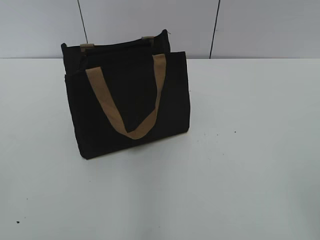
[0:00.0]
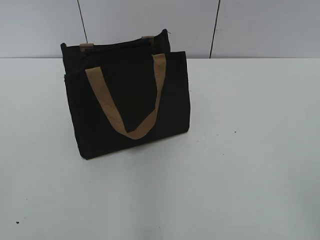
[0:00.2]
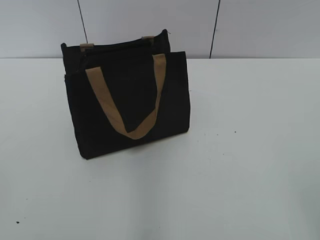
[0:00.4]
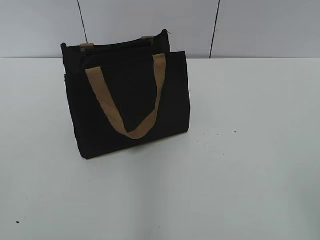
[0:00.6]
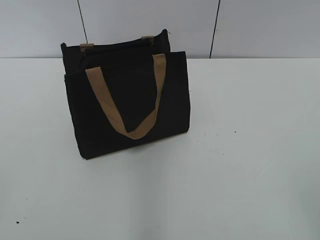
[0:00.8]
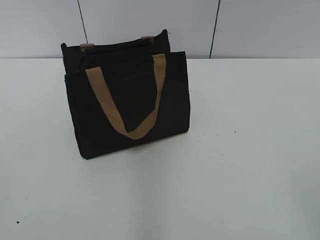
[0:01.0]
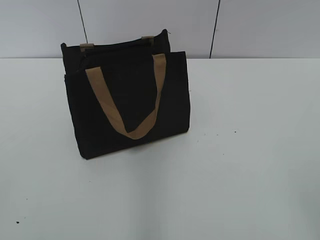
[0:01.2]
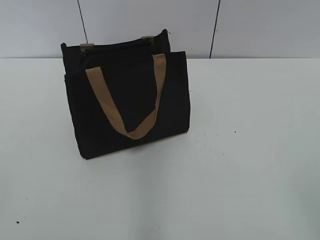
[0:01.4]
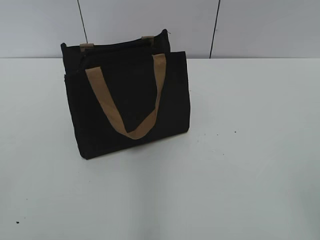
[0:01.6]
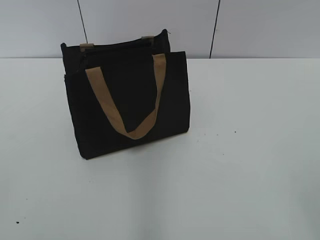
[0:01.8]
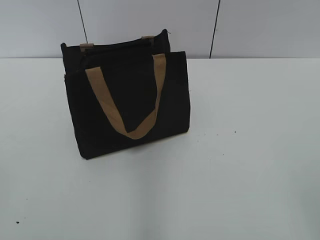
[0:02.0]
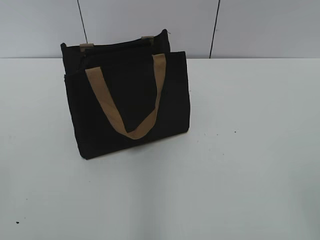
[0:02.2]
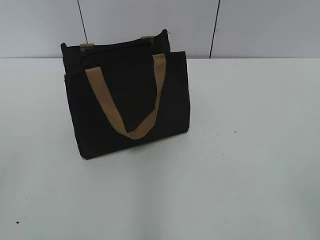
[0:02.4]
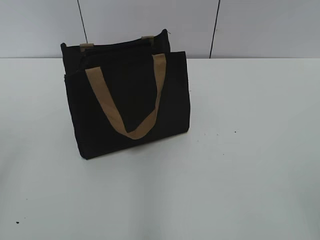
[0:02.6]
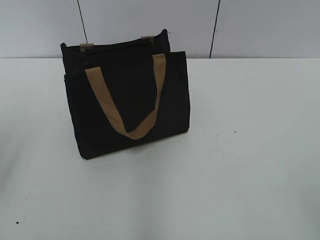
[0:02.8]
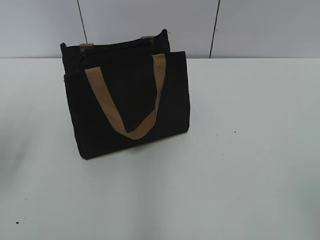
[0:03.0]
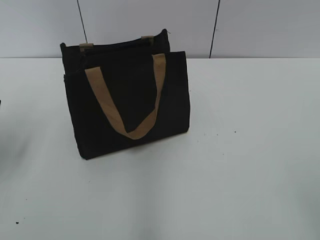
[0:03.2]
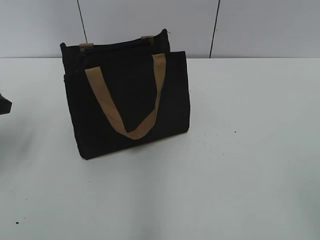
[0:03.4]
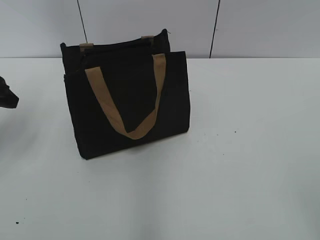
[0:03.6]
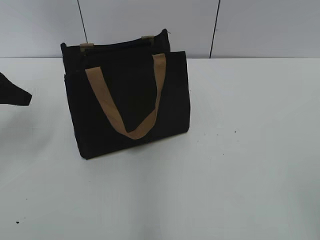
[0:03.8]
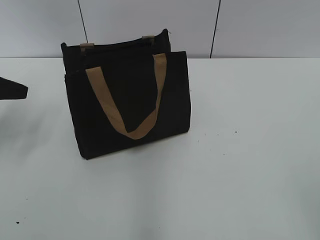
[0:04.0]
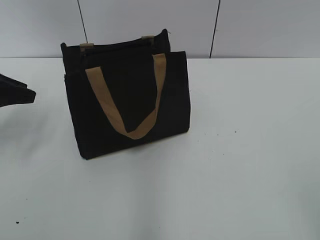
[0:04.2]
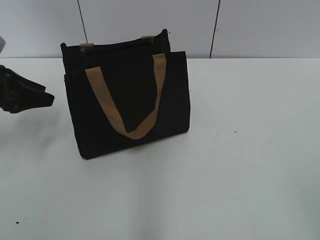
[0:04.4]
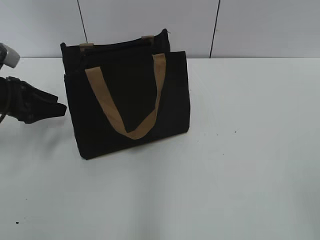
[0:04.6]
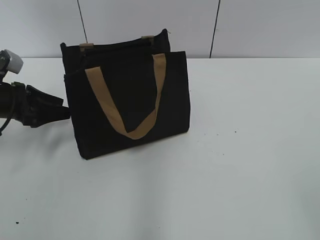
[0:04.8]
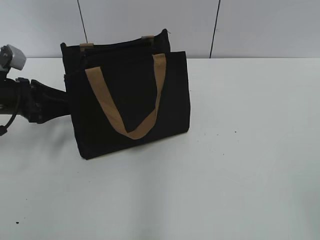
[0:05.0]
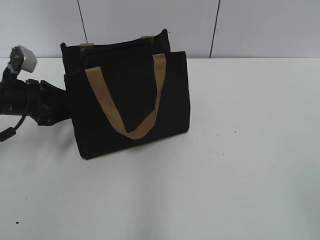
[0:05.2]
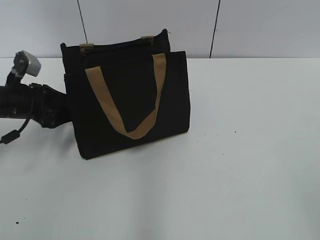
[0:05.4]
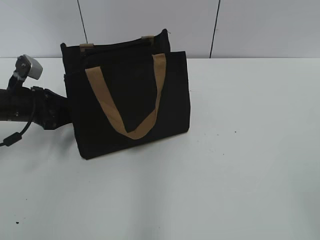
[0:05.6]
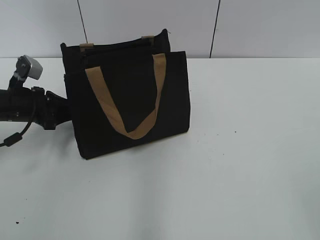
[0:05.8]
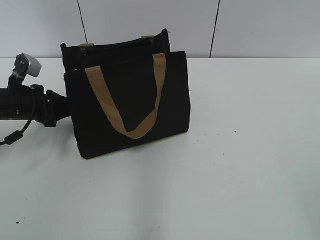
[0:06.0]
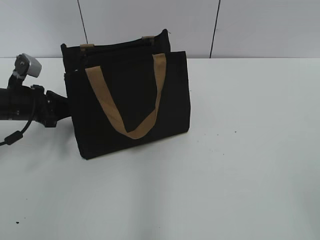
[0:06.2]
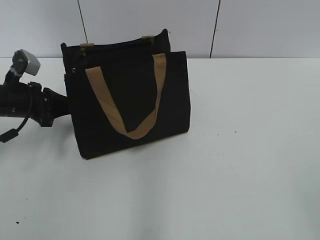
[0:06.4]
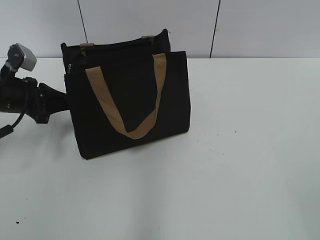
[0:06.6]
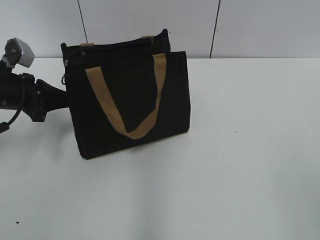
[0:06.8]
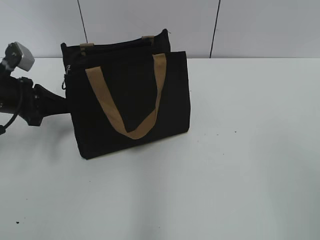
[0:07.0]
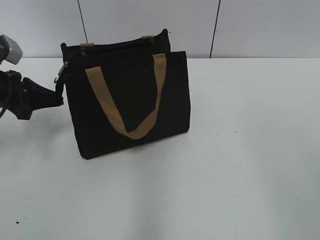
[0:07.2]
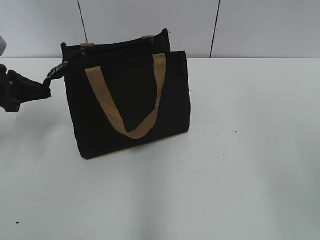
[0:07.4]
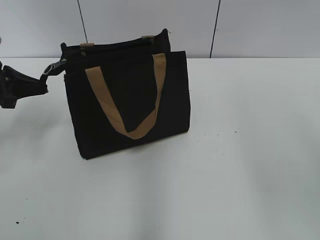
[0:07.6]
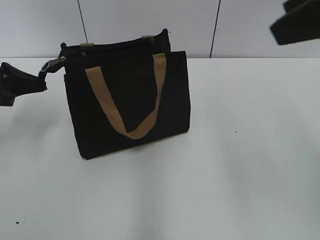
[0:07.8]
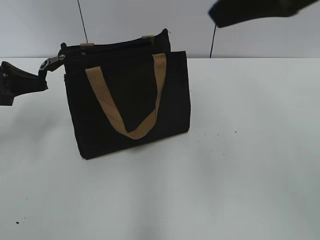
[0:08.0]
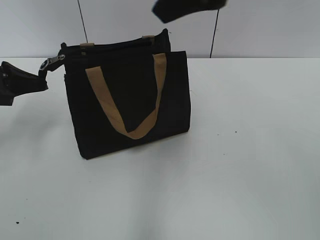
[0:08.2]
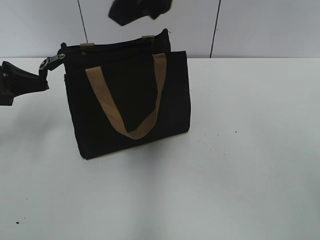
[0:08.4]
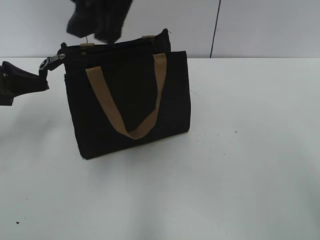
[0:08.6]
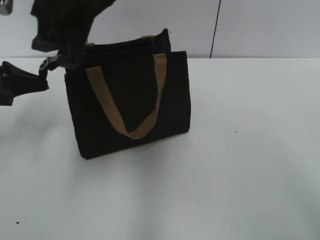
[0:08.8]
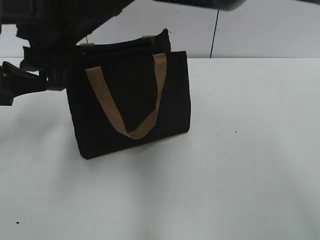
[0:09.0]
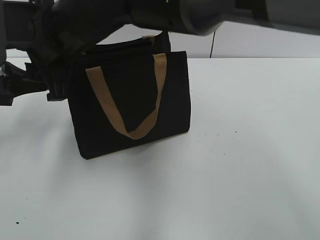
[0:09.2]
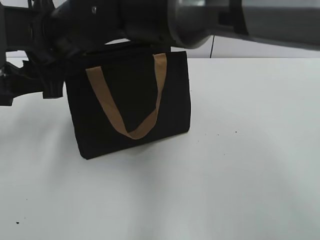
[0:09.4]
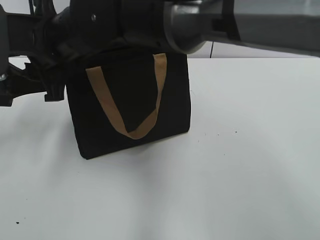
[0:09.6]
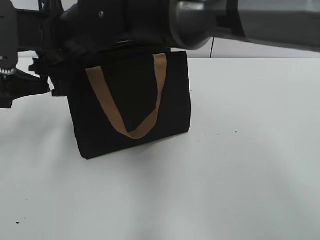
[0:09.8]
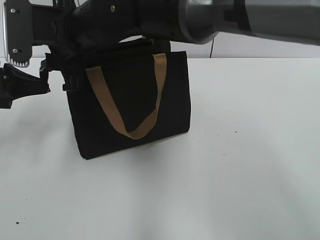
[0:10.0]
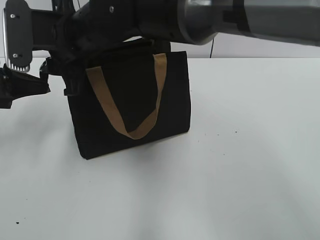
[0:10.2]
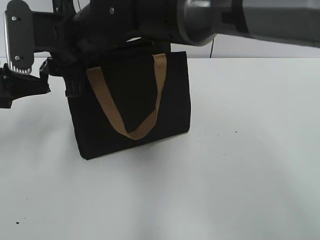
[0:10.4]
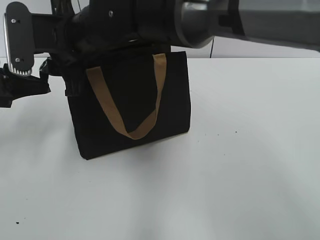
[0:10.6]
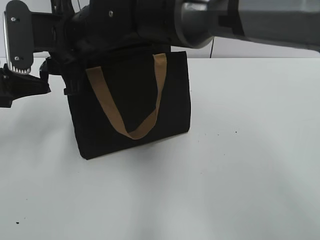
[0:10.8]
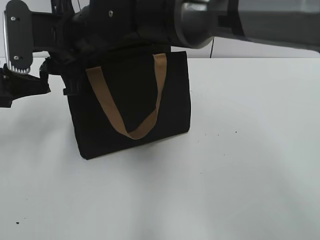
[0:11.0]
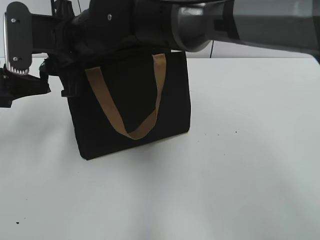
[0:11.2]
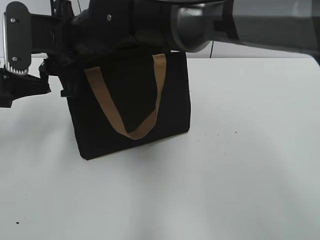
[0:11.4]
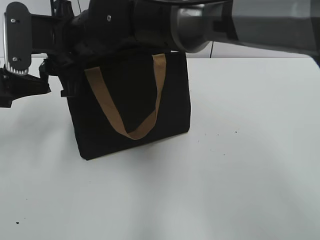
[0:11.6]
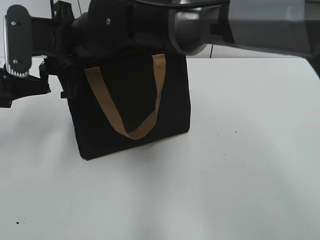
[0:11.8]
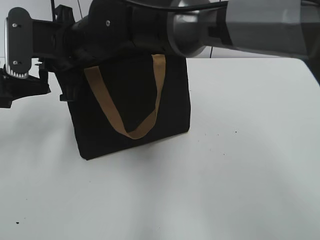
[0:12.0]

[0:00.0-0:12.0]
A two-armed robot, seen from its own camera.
1.6 to 3.0 s: The left gripper travels forward by about 20 cm, and opens up.
3.0 to 4.4 s: The left gripper moves forward and downward, approximately 15 cm.
4.4 to 6.0 s: The left gripper is displaced downward by about 5 cm, and closes.
6.0 to 7.6 s: The left gripper moves upward, about 5 cm.
7.6 to 9.0 s: The right gripper heads to the left, covering roughly 30 cm.
9.0 to 10.4 s: The right gripper shifts approximately 5 cm downward.
10.4 to 12.0 s: The right gripper closes up.

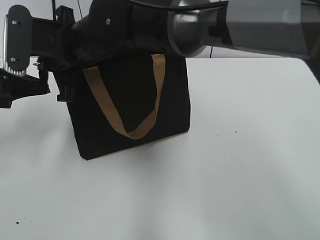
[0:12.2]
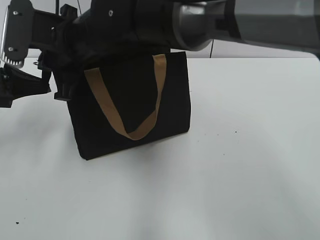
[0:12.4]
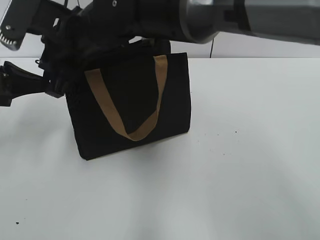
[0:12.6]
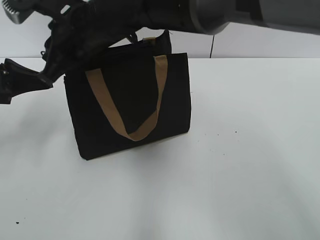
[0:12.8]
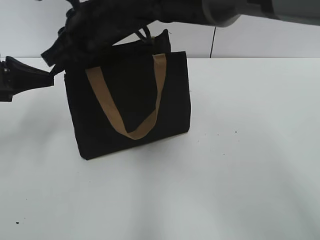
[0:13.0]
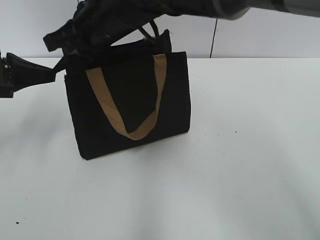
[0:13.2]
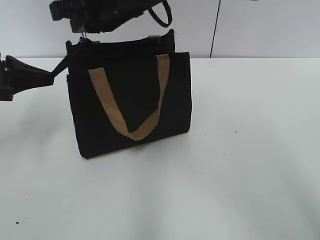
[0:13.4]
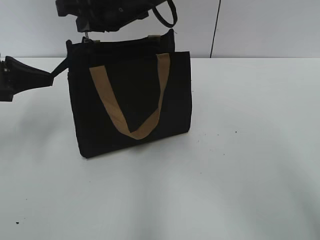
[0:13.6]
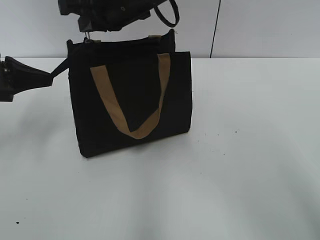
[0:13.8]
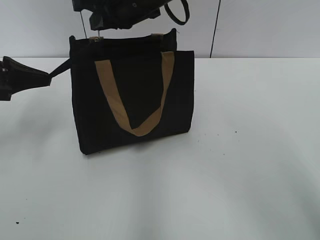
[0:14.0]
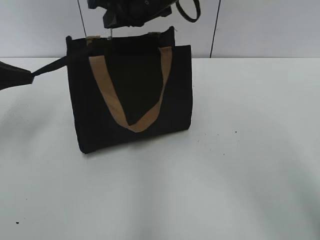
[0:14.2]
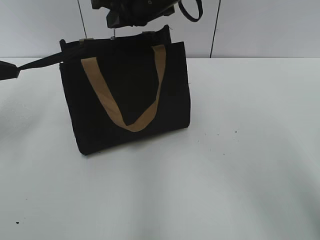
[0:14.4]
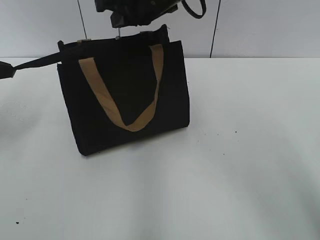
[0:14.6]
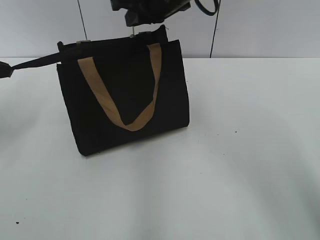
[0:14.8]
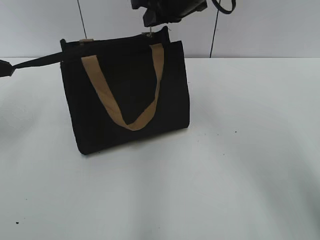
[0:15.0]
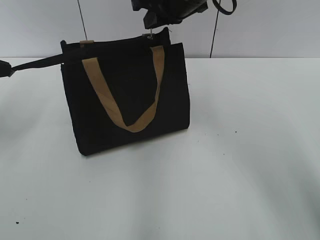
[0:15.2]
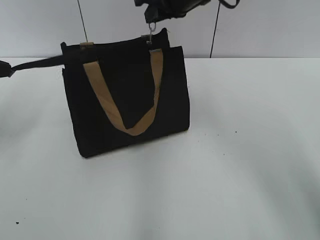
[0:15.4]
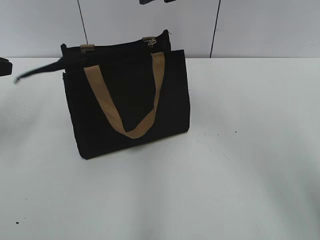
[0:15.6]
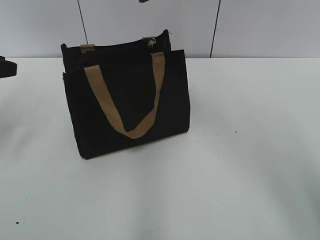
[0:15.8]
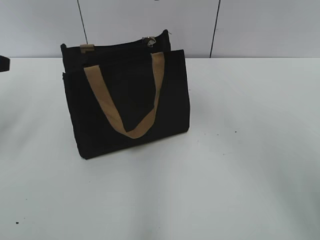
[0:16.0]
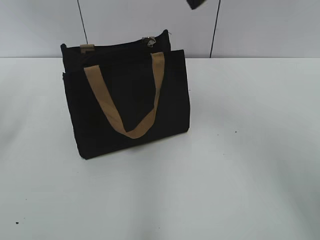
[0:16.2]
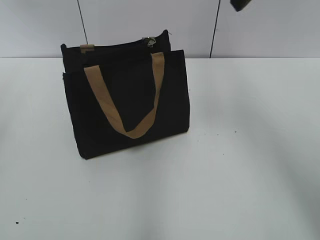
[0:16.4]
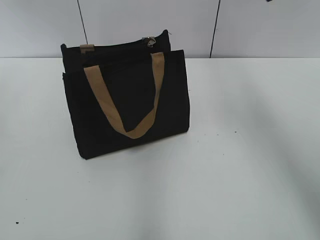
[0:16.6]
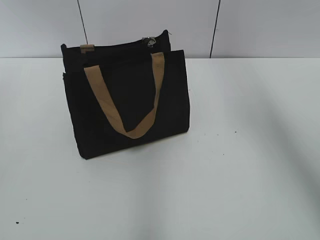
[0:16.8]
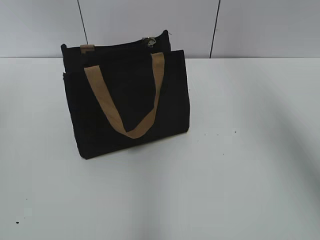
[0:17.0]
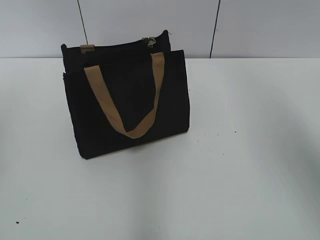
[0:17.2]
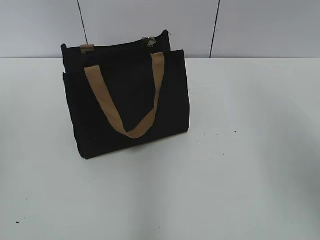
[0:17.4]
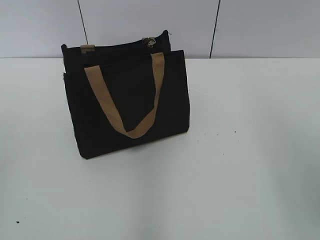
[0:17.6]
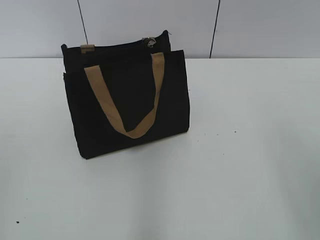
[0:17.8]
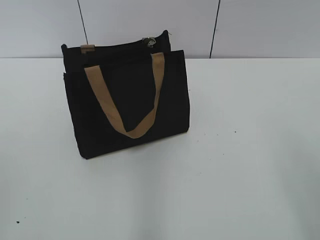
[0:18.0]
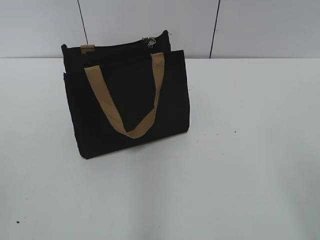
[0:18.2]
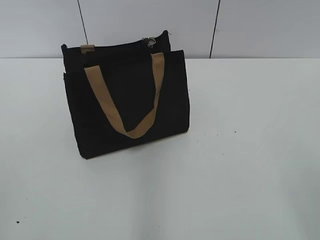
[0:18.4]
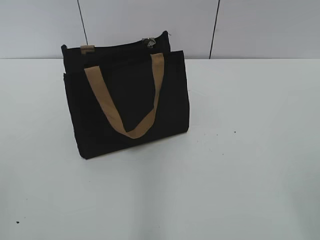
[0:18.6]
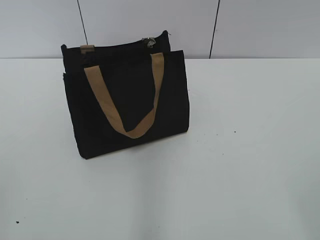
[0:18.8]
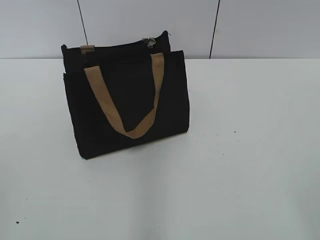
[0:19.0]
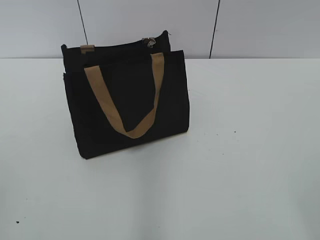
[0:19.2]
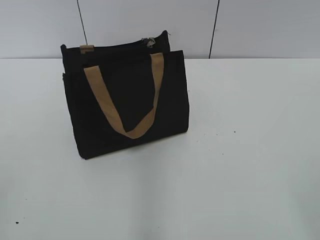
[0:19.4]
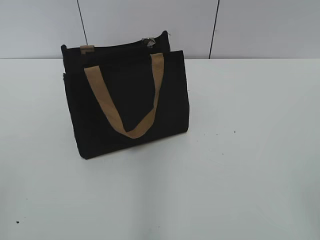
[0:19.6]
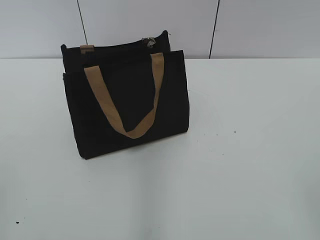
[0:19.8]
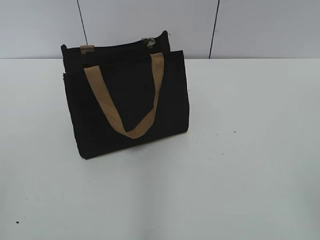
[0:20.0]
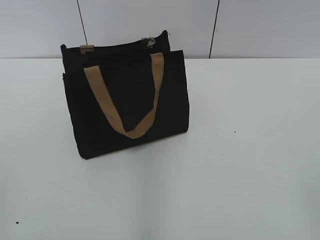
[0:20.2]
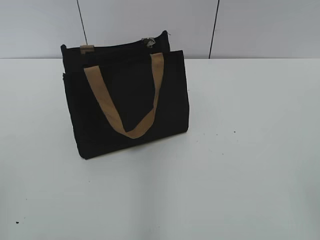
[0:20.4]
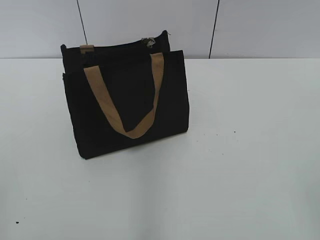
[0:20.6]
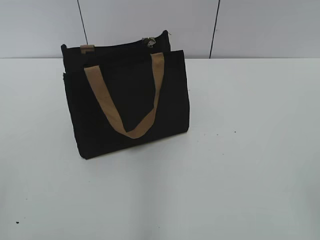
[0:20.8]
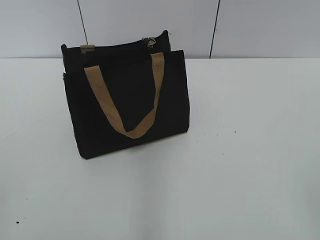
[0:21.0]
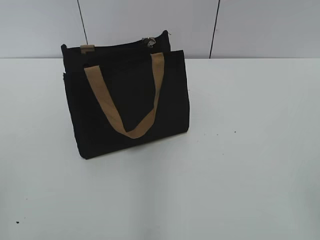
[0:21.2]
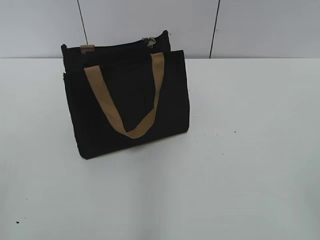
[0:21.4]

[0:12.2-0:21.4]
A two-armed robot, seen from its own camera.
Step, 12.2 to 15.4 s: Zip up the bag with your right hand.
12.2 to 13.8 s: The right gripper travels to the right and upward by about 10 cm.
13.8 to 15.2 s: The right gripper moves to the right, roughly 10 cm; the left gripper heads to the left, covering roughly 5 cm.
15.2 to 16.8 s: The right gripper travels to the right, upward and backward by approximately 20 cm, and opens up; the left gripper is displaced upward and backward by some 15 cm, and opens its fingers.
16.8 to 18.4 s: The right gripper heads backward and downward, covering approximately 35 cm.
19.8 to 21.4 s: The two grippers keep their place.

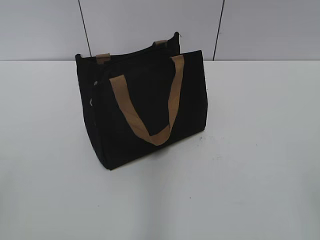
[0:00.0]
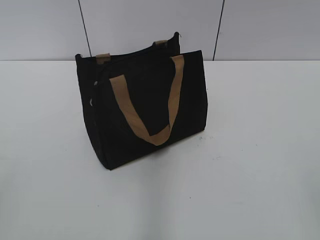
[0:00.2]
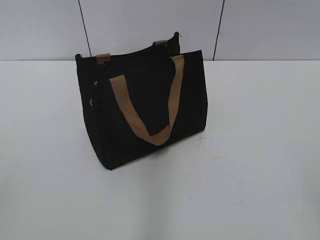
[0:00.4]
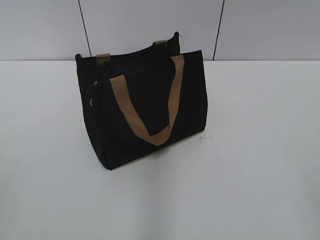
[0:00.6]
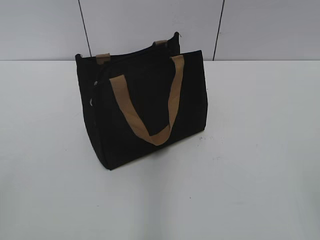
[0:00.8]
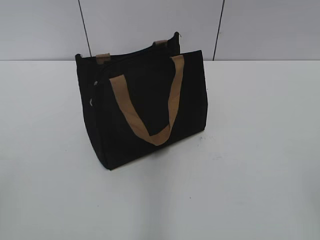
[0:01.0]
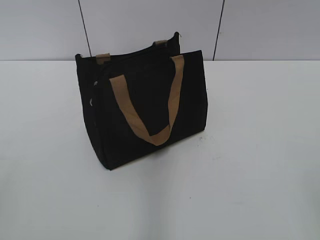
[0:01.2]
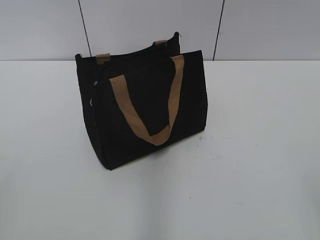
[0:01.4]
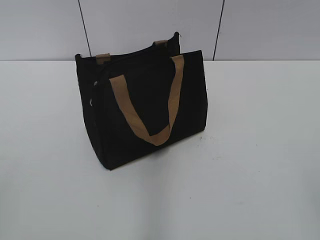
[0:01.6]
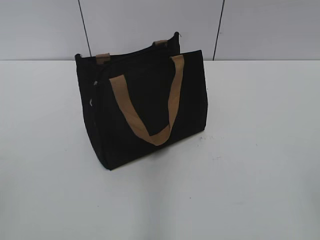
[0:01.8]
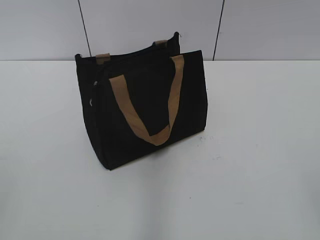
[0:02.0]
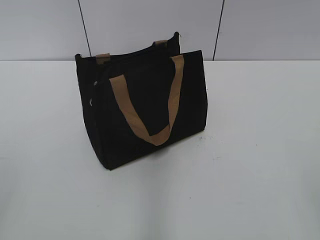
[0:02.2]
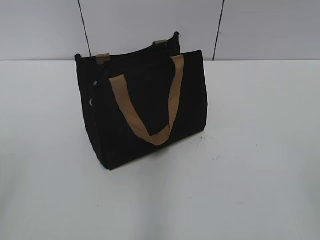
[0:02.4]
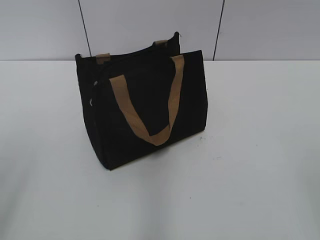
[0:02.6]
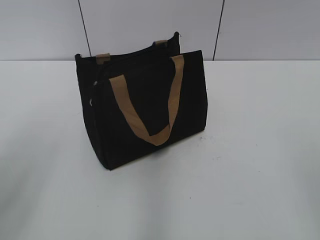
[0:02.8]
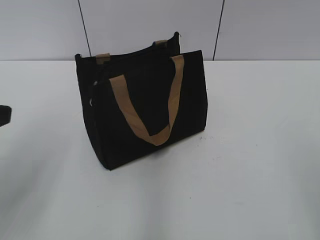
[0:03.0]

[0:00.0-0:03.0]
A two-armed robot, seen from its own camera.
1.6 to 3.0 s: The left gripper moves forward, some 15 cm.
